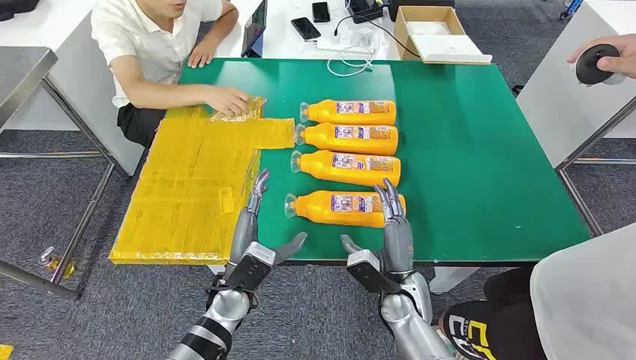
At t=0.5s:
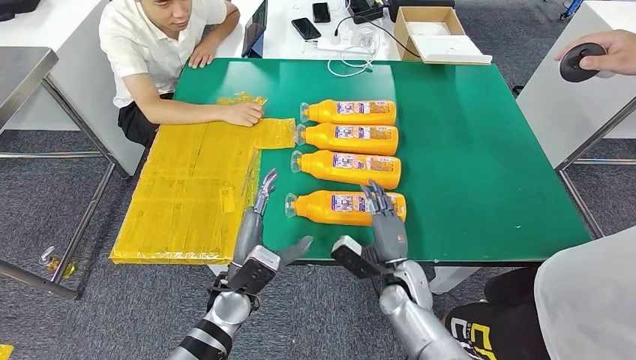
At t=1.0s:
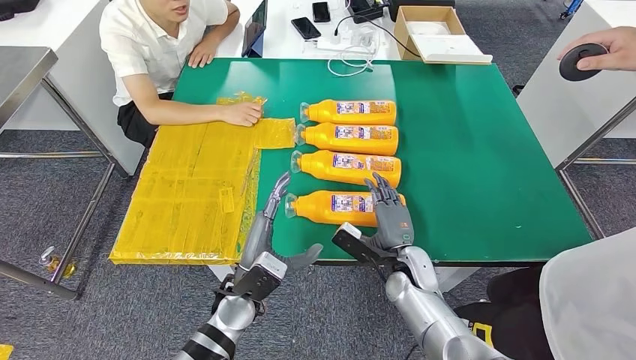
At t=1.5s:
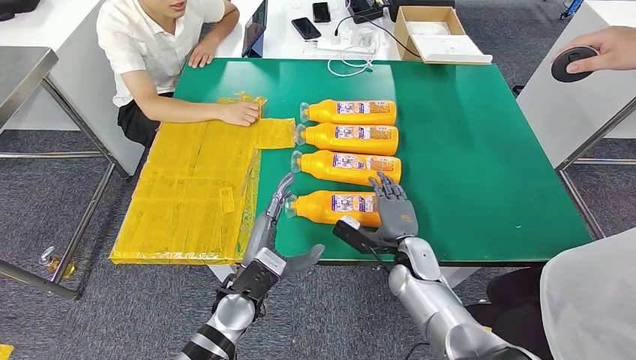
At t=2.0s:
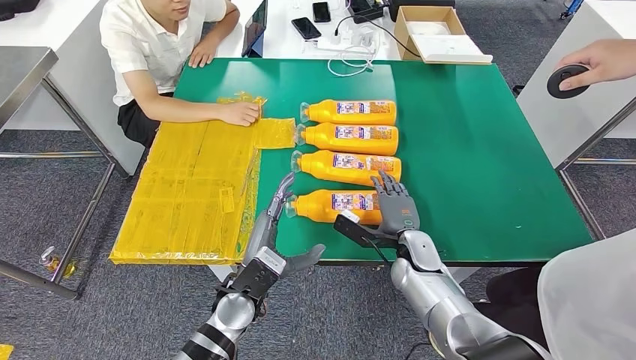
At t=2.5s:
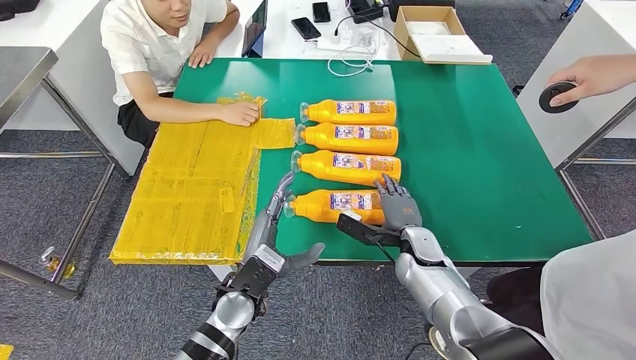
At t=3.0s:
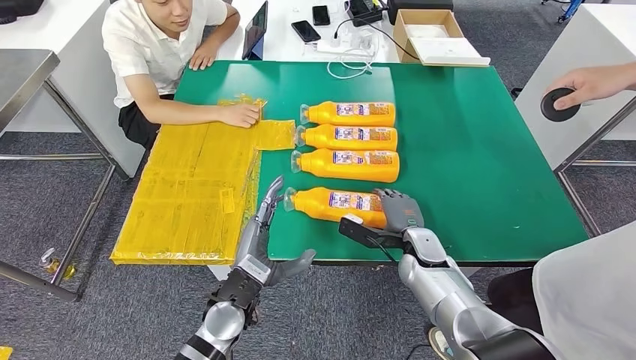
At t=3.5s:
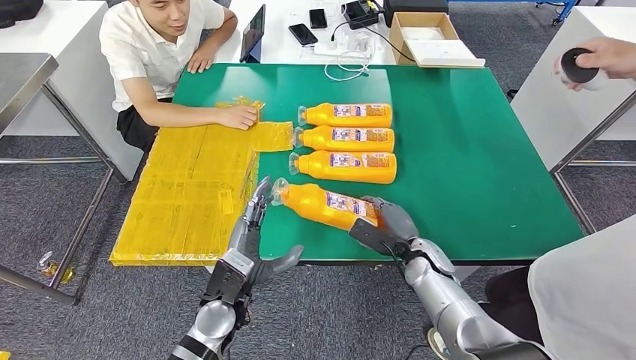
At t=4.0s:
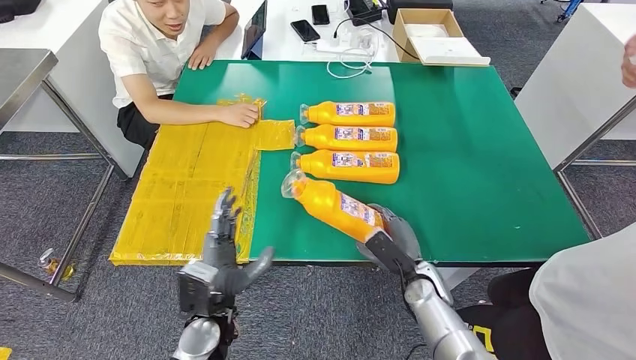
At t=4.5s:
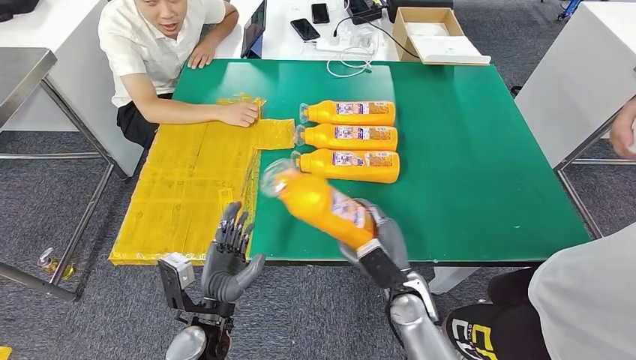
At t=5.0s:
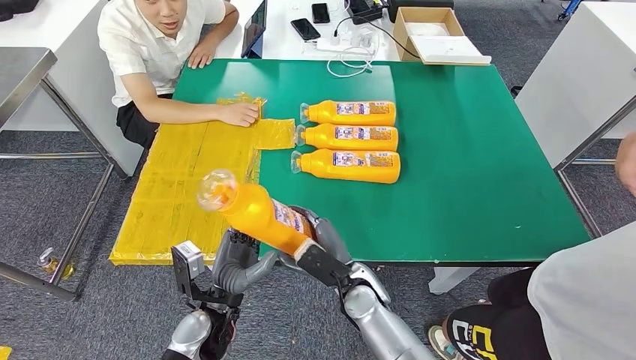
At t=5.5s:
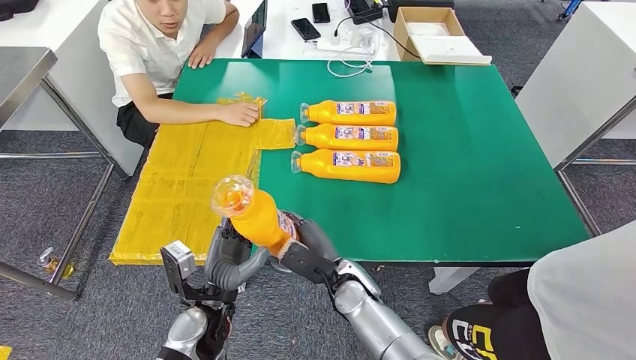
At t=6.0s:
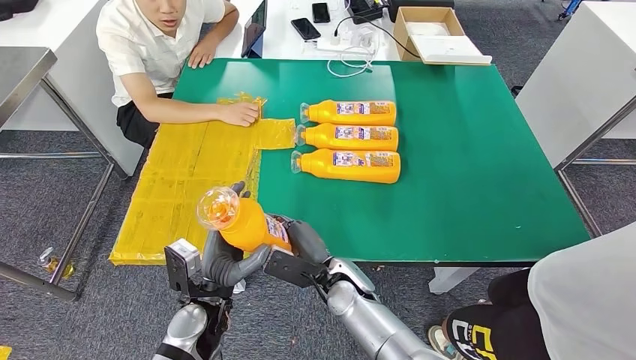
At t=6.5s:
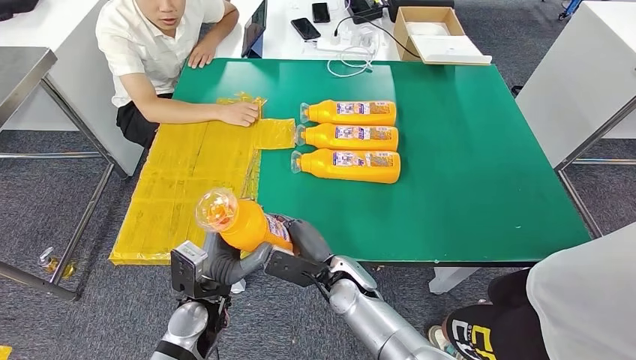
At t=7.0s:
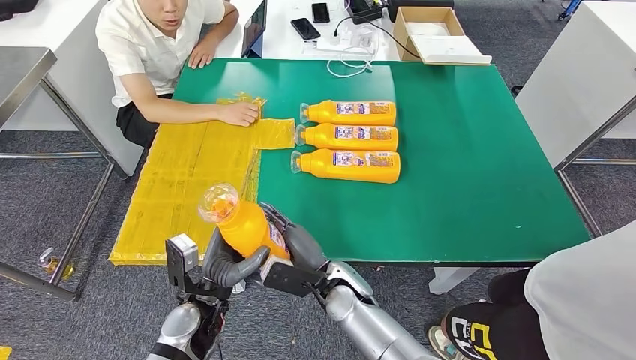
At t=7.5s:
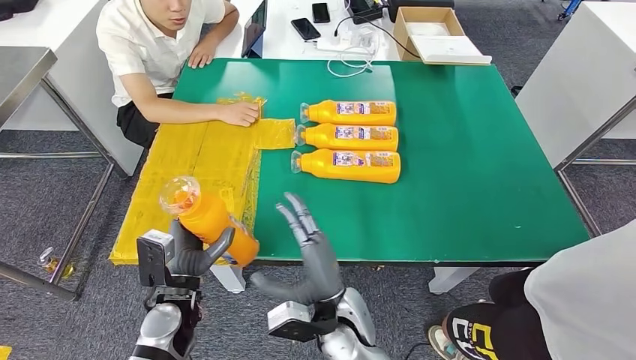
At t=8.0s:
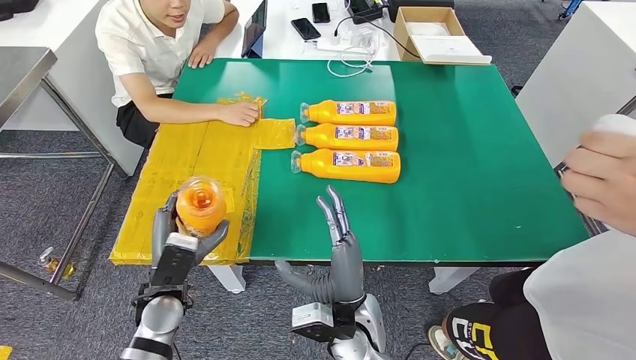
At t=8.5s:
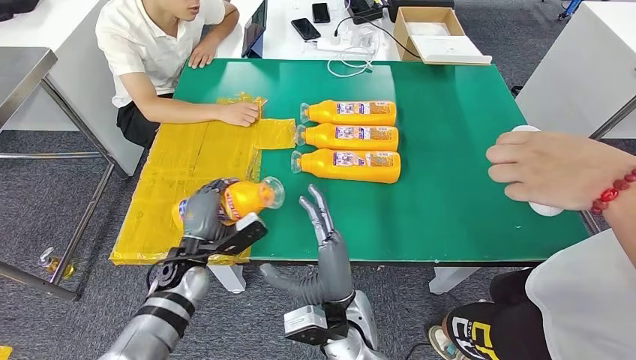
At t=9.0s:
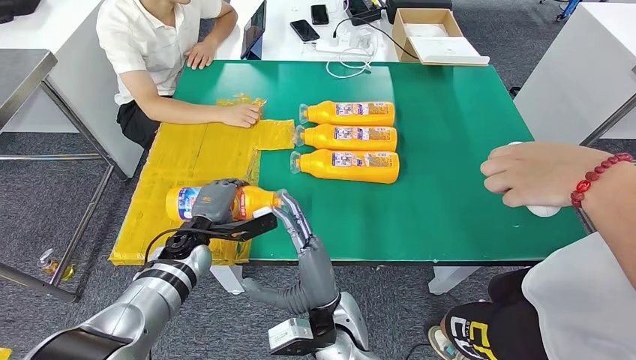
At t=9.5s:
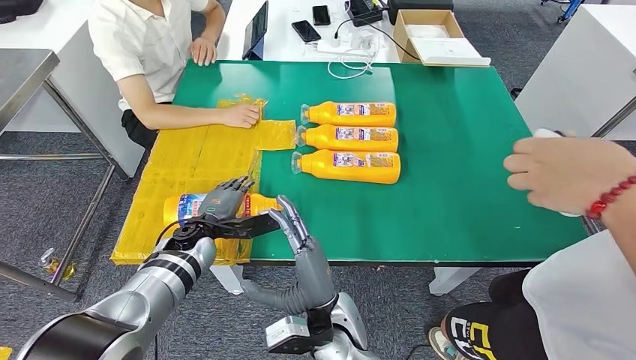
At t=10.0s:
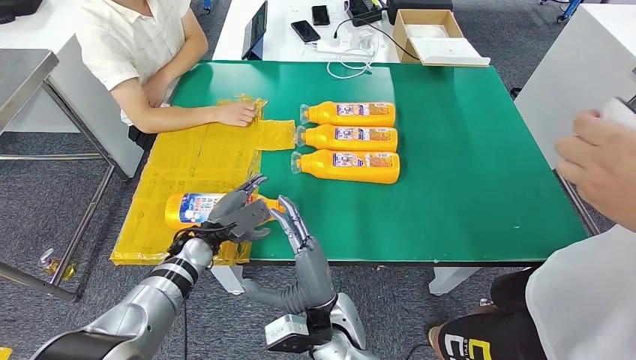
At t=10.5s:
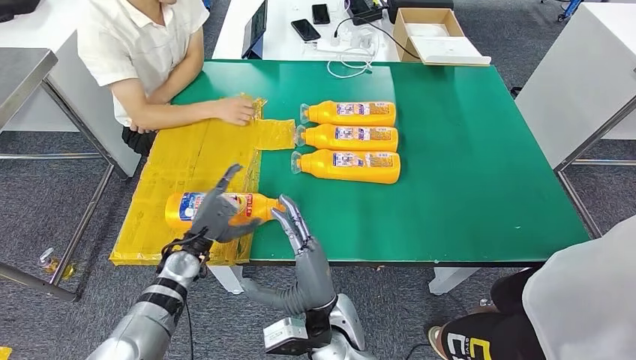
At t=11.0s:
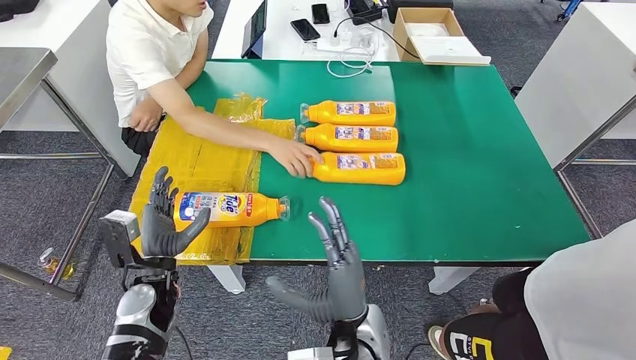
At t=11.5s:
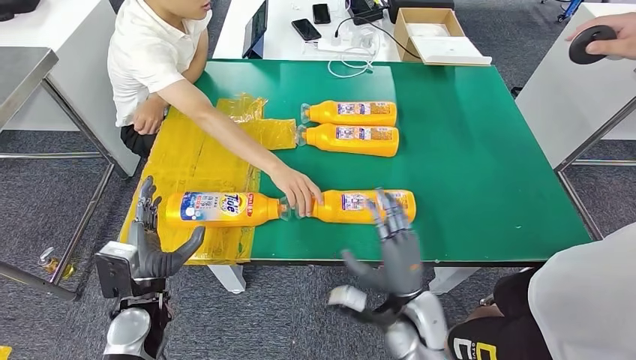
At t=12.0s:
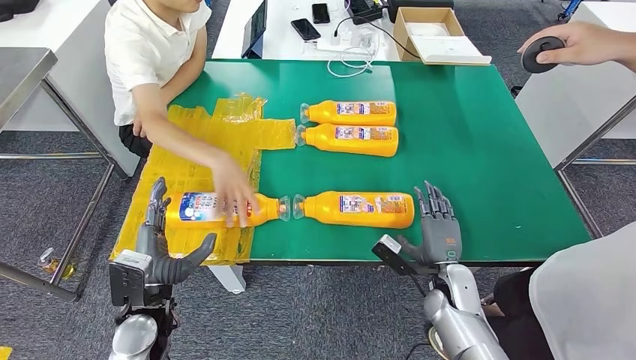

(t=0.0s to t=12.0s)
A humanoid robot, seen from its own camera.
Step, t=0.0s - t=5.5s: Take the fast-moving consumer goods bottle from the table.
Step, t=6.0s - t=10.5s: Flip the fast-moving consumer goods bottle to the front side.
t=2.0s - t=4.0s: The left hand shifts by some 5 cm. Meanwhile the right hand shifts about 5 cm backward.
t=4.0s - t=6.0s: The right hand moves to the left, roughly 15 cm.
t=6.0s - t=8.0s: The left hand travels to the left by roughly 5 cm. The right hand travels backward by about 5 cm.

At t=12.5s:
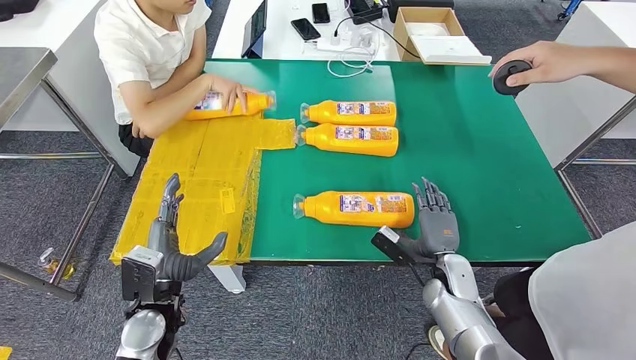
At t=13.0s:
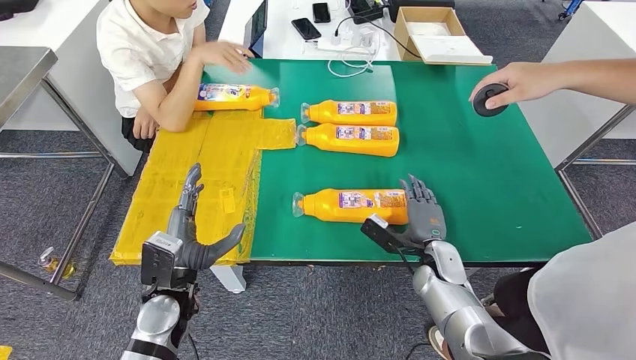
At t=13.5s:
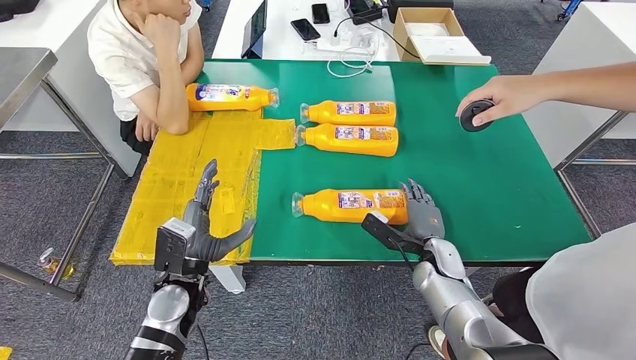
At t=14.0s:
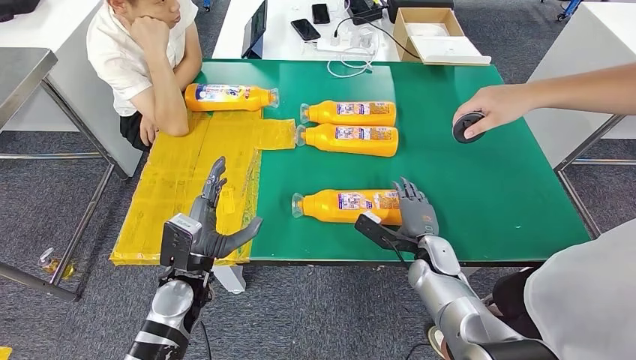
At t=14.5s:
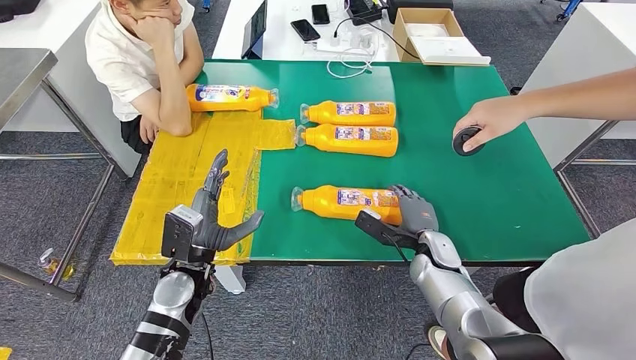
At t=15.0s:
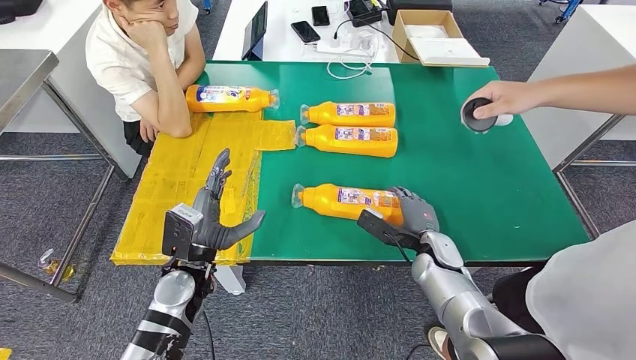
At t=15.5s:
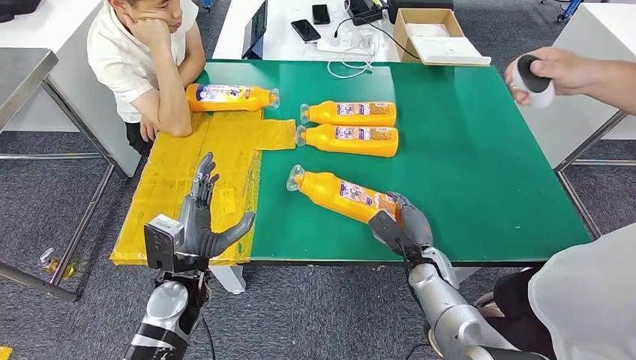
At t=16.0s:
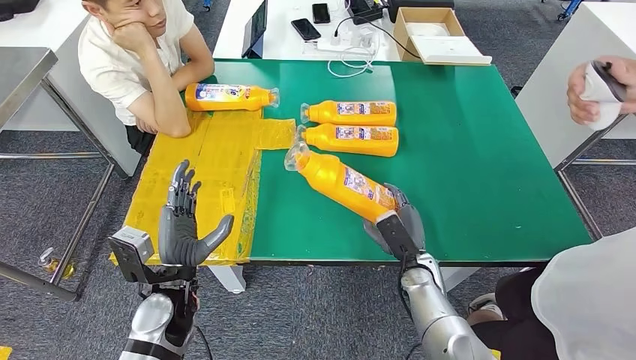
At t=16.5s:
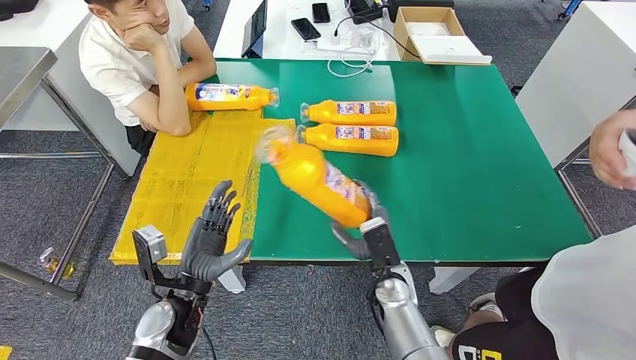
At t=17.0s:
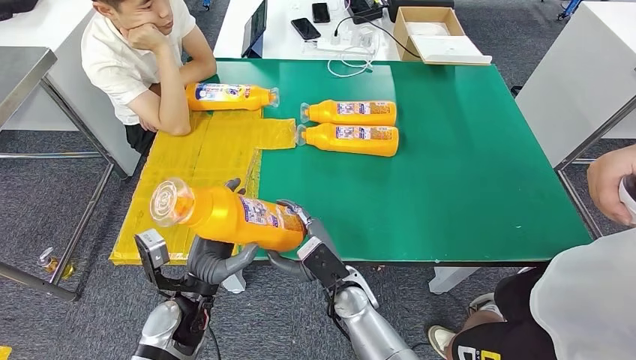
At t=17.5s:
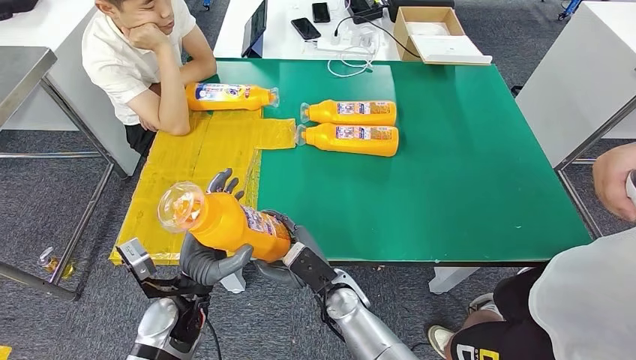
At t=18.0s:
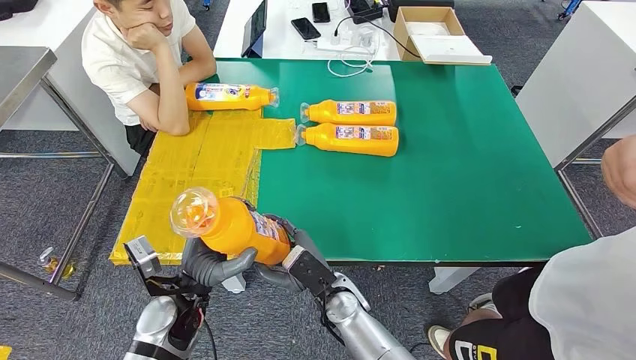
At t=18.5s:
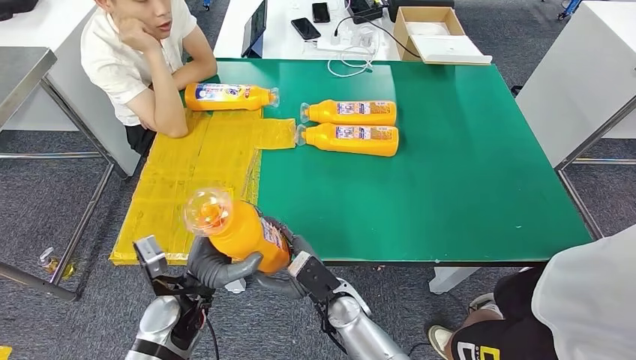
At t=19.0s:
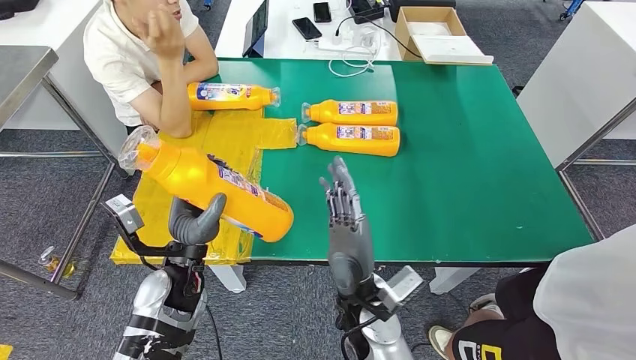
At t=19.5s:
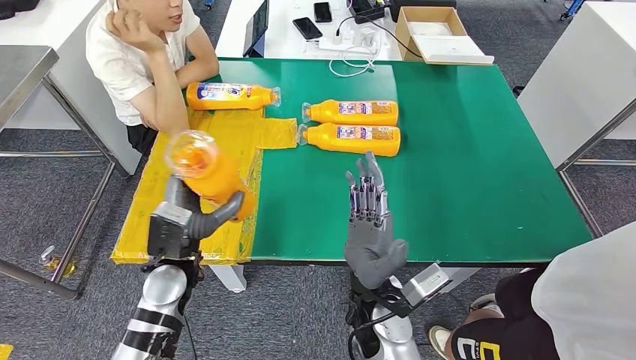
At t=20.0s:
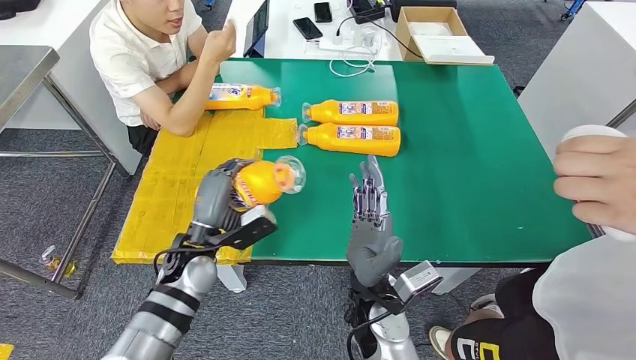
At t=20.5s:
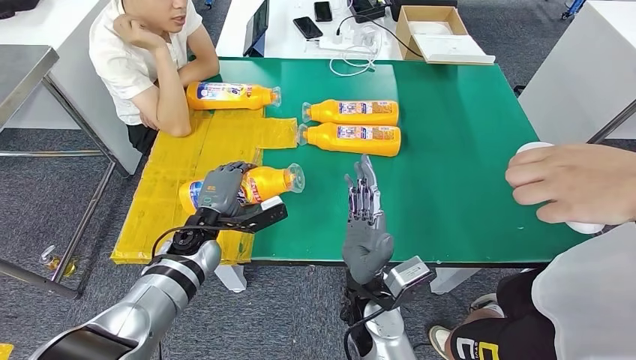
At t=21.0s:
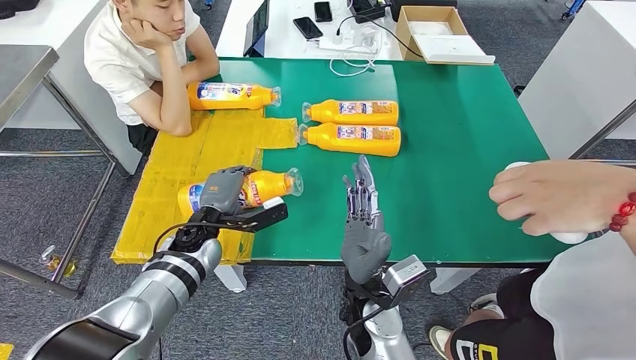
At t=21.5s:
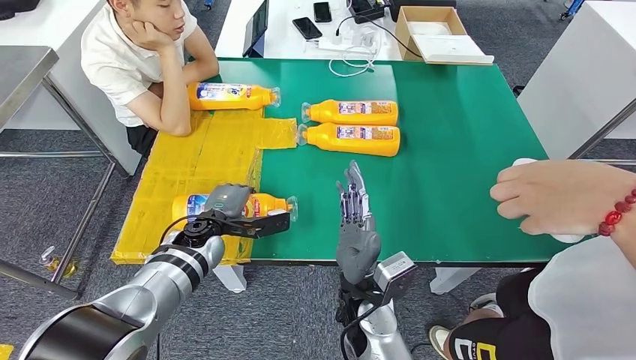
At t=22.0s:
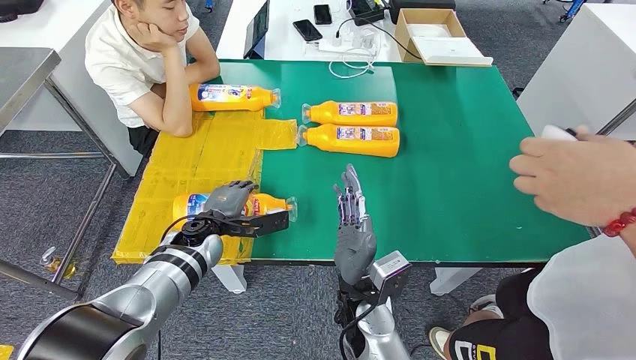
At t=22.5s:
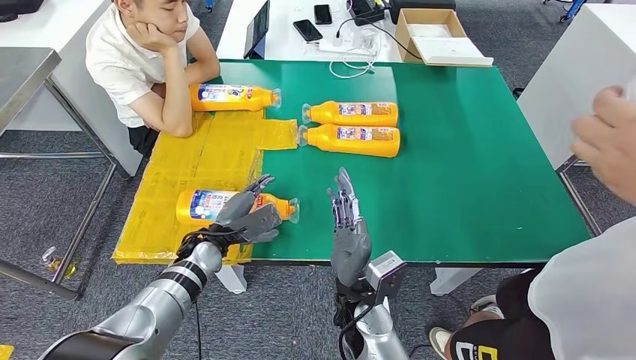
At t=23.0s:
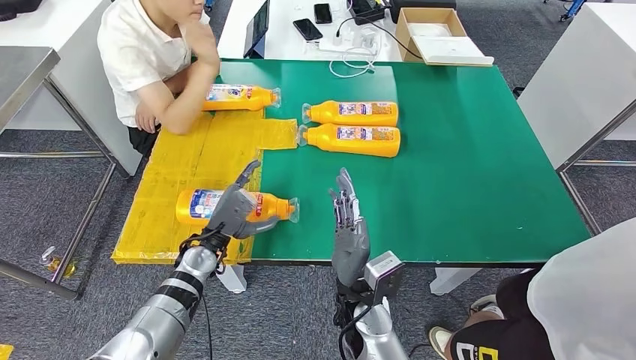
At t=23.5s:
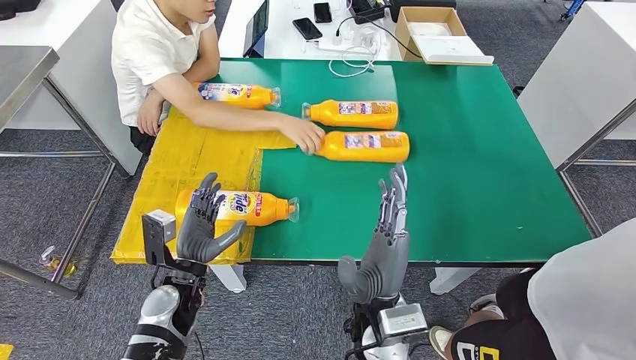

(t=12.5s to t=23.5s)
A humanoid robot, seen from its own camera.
Step, t=12.5s - t=18.0s: Pick up the fast-moving consumer goods bottle from the table.
t=12.5s - t=14.5s: The right hand changes place by approximately 5 cm. The left hand shifts by approximately 5 cm.
t=16.0s - t=18.0s: The right hand goes about 15 cm to the left.
